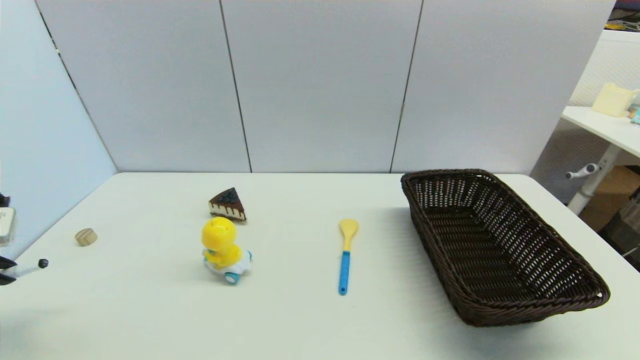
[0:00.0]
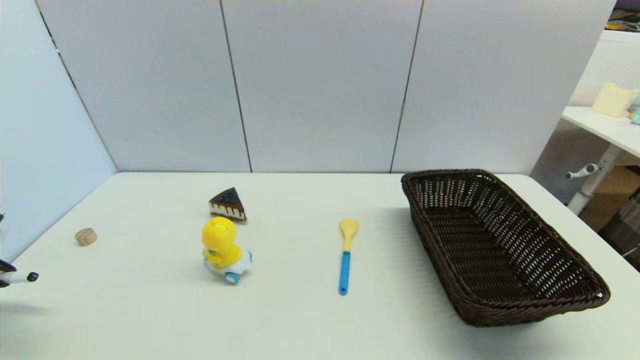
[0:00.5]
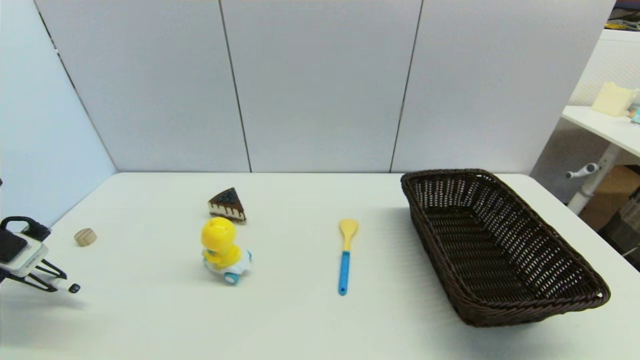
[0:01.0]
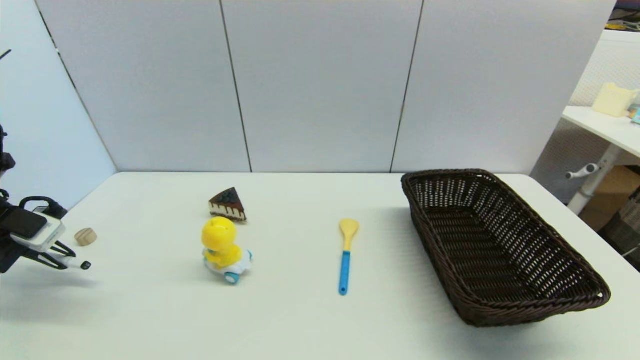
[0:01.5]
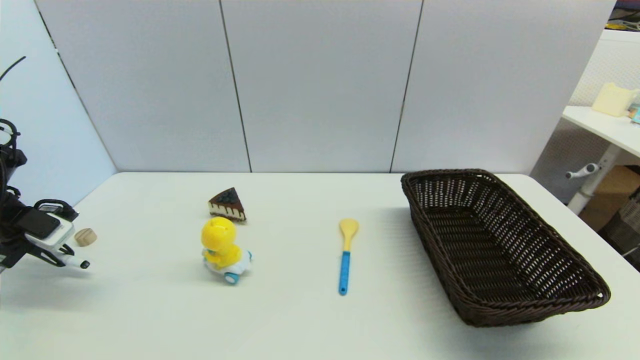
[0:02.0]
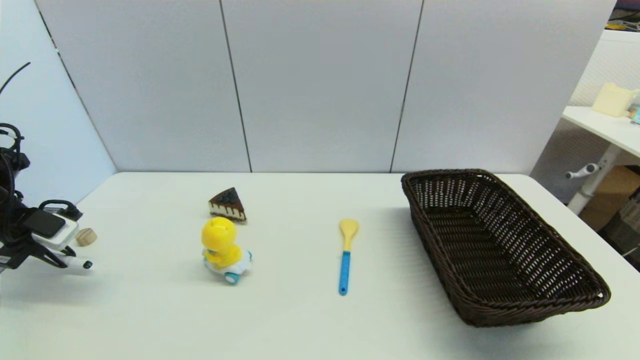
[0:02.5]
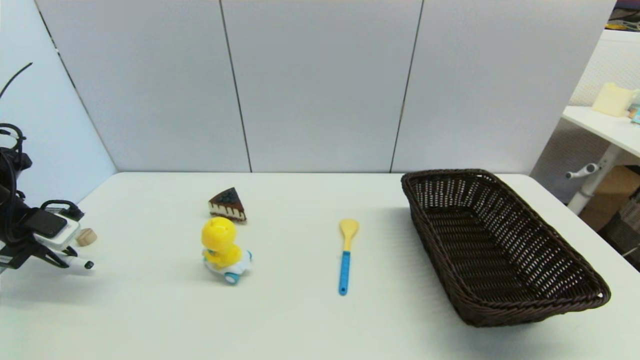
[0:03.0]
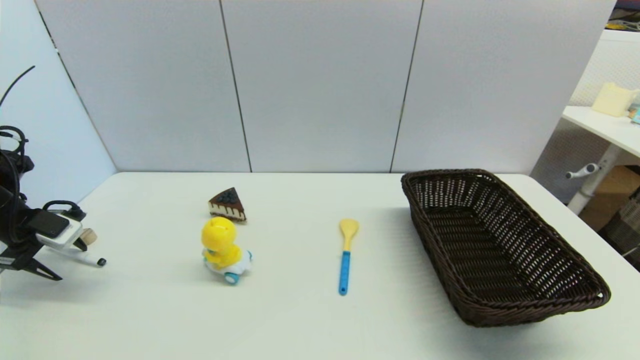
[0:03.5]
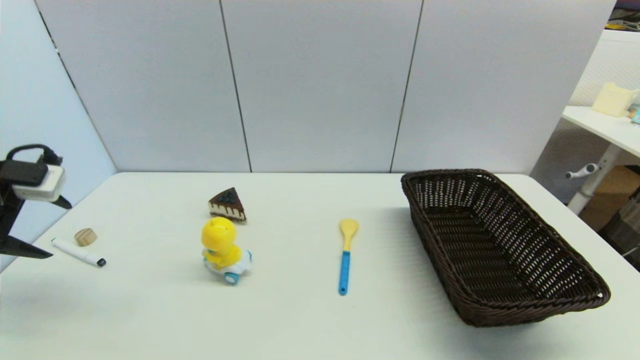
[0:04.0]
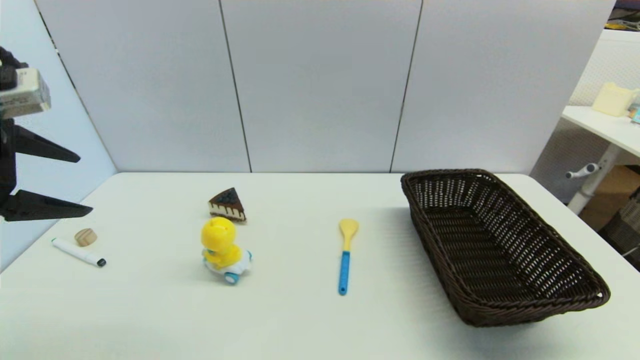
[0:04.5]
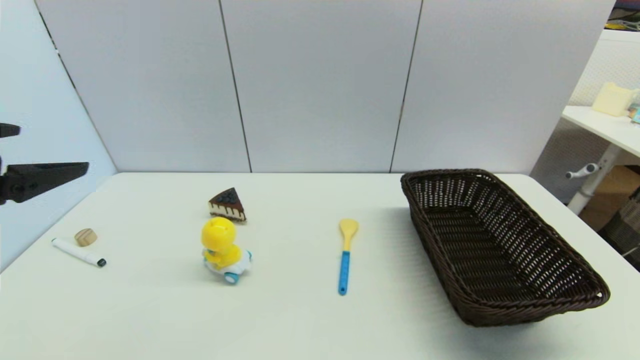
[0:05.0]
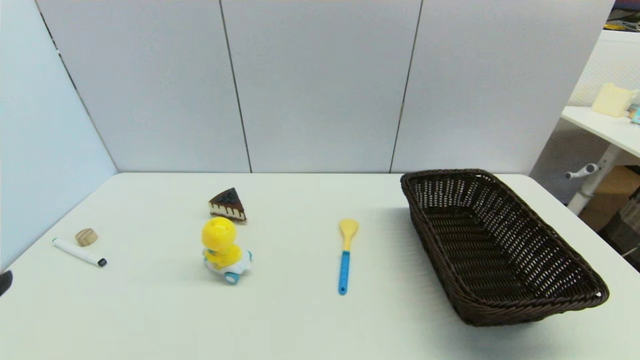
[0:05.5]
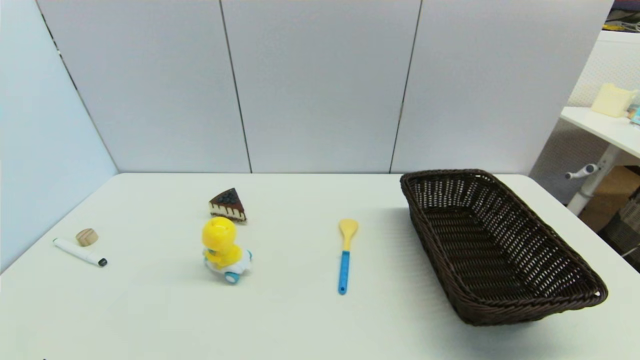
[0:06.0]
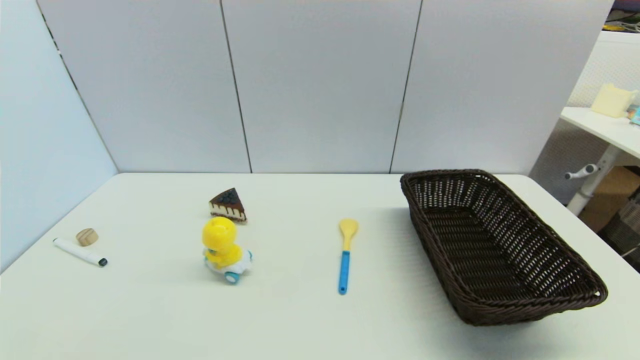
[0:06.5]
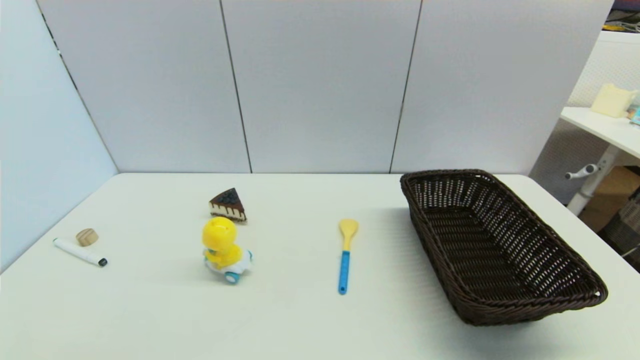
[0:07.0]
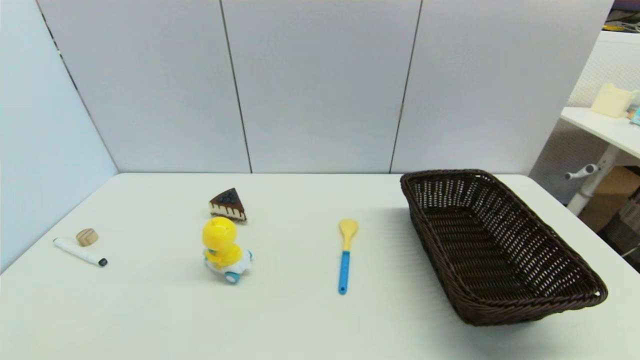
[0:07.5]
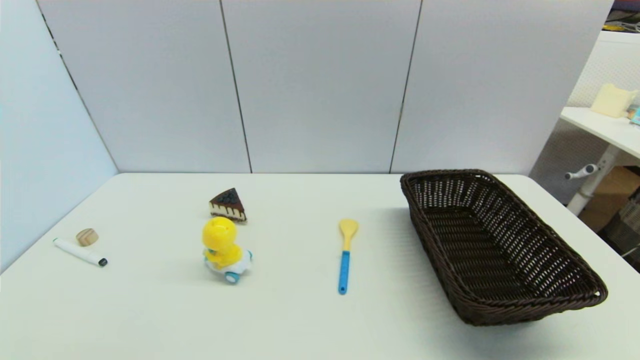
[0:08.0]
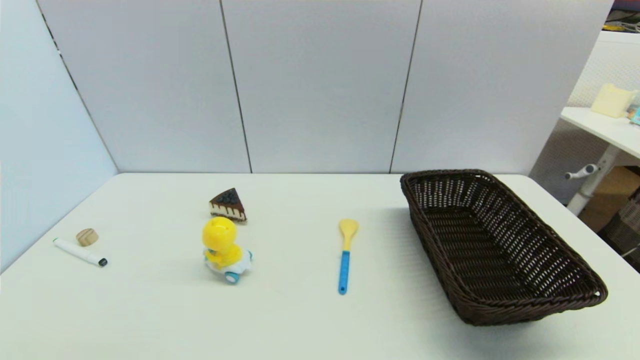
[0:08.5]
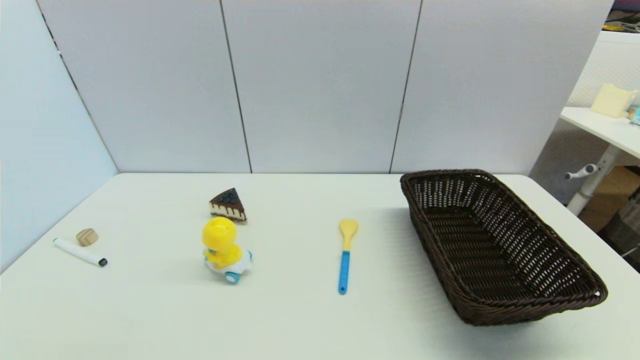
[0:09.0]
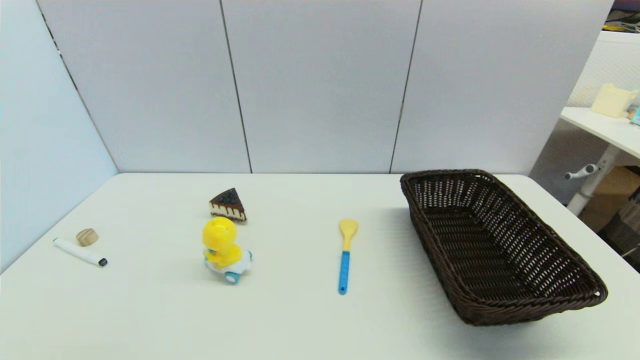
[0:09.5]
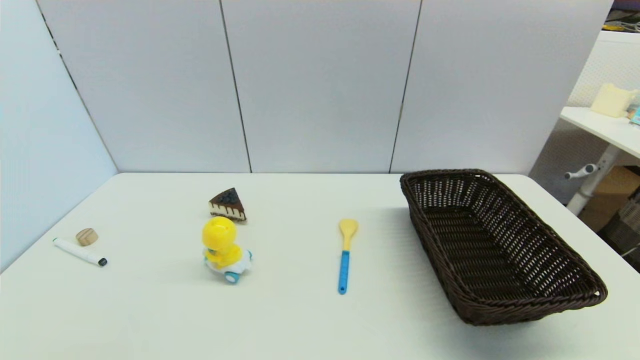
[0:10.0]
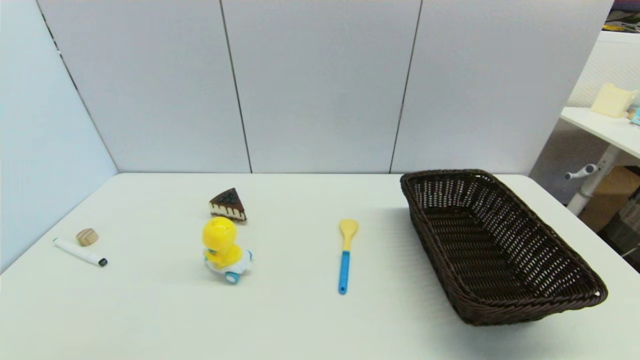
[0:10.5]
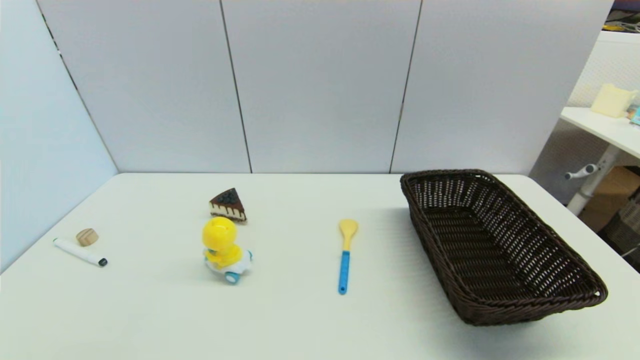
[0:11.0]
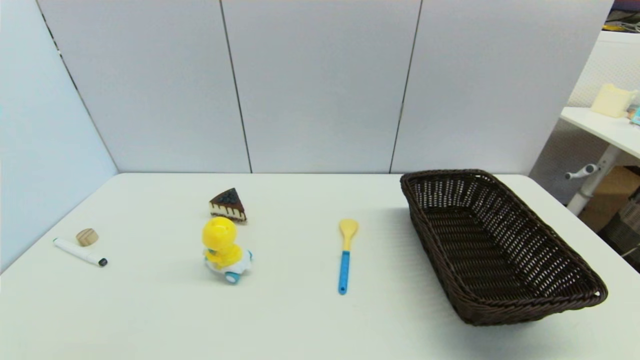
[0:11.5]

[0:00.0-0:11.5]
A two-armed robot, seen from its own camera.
Task of the whole recording: put the black marker in the designated position.
Step, 0:00.0 to 0:03.5: Place the Marker pen on the table with left gripper.
0:00.0 to 0:02.0: The left gripper heads forward, covering some 10 cm.
0:02.0 to 0:04.0: The left gripper shifts about 10 cm upward, and opens.
0:04.0 to 0:06.0: The left gripper is displaced backward, to the right and downward by some 30 cm.
0:07.5 to 0:11.5: Neither gripper changes place.
